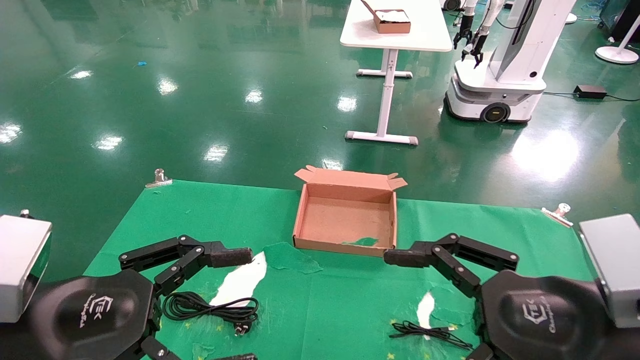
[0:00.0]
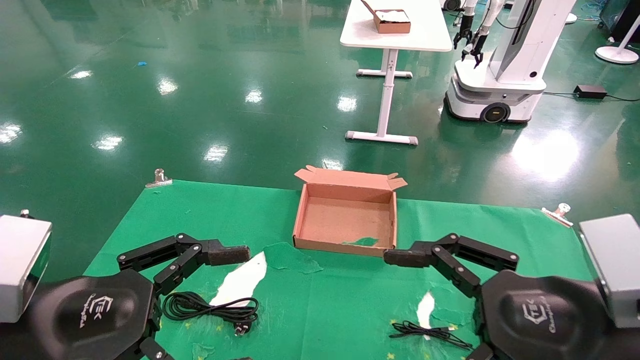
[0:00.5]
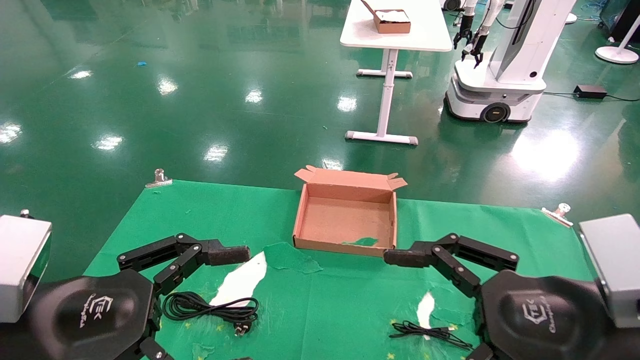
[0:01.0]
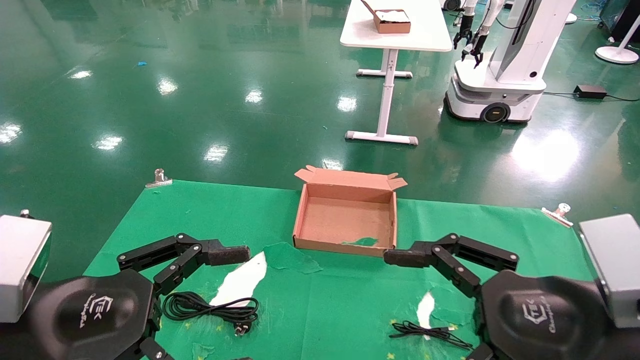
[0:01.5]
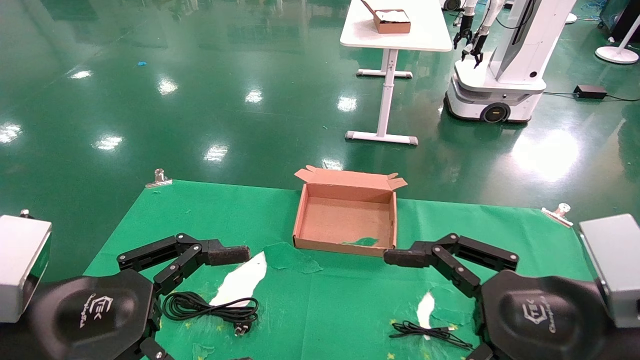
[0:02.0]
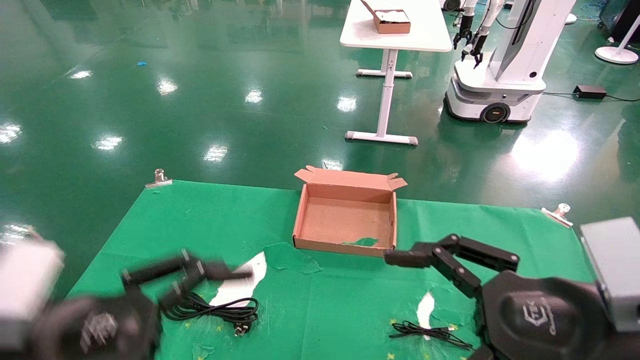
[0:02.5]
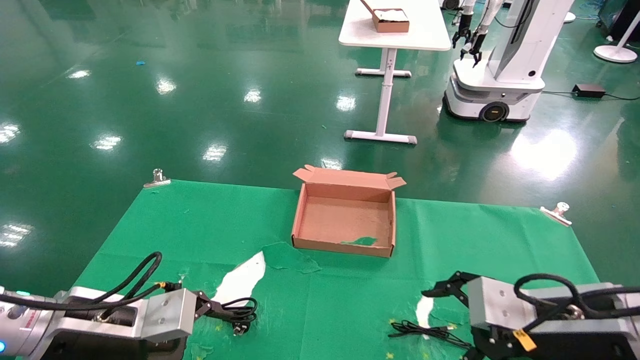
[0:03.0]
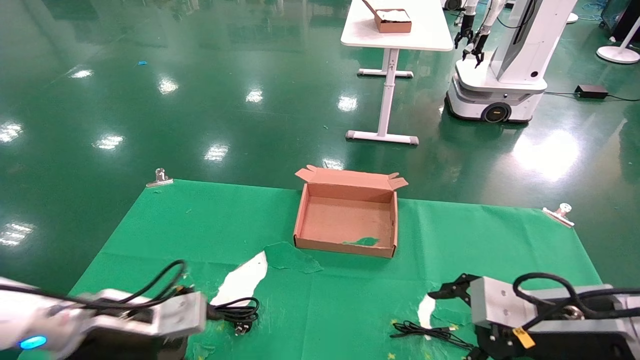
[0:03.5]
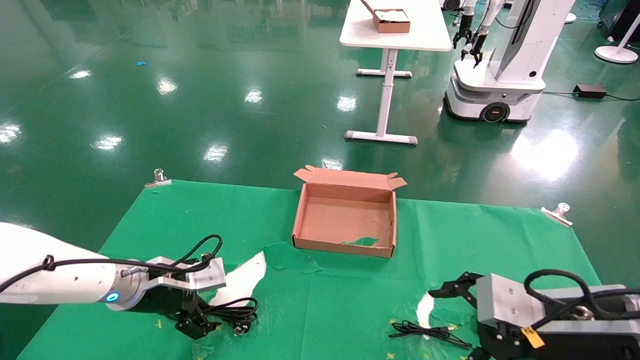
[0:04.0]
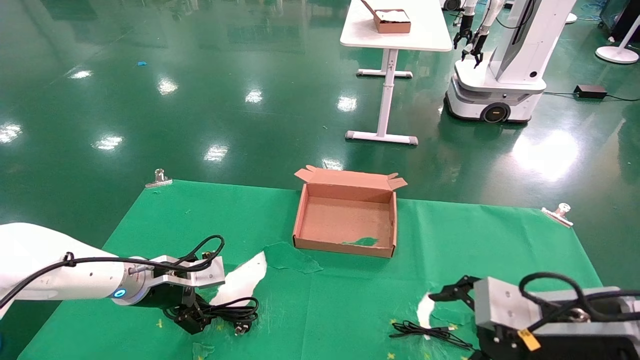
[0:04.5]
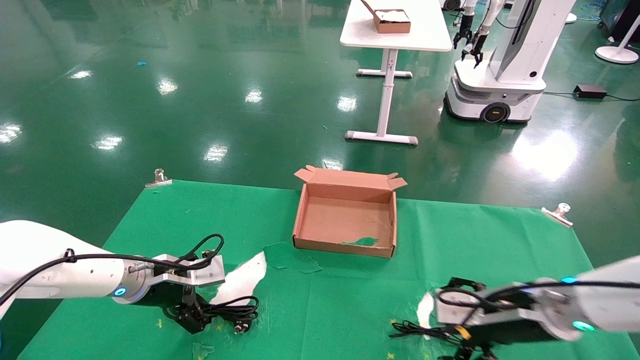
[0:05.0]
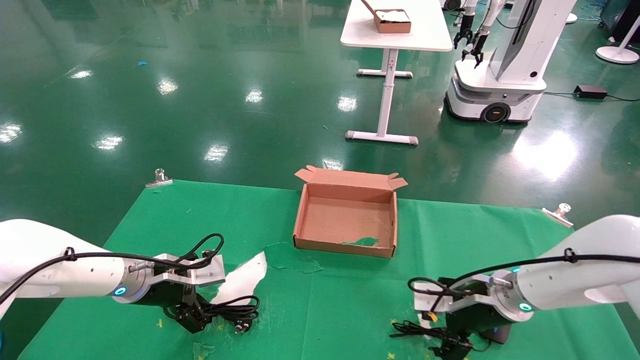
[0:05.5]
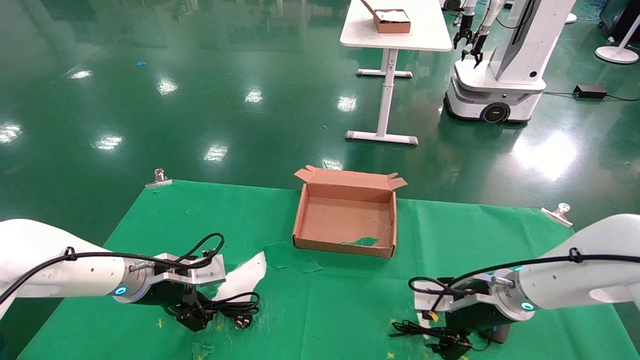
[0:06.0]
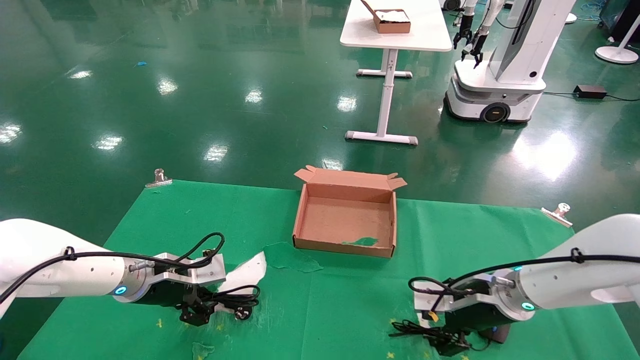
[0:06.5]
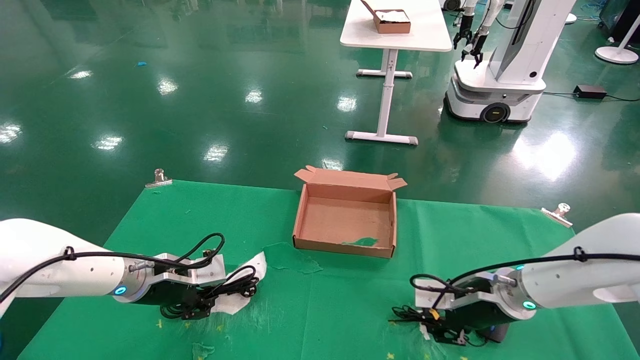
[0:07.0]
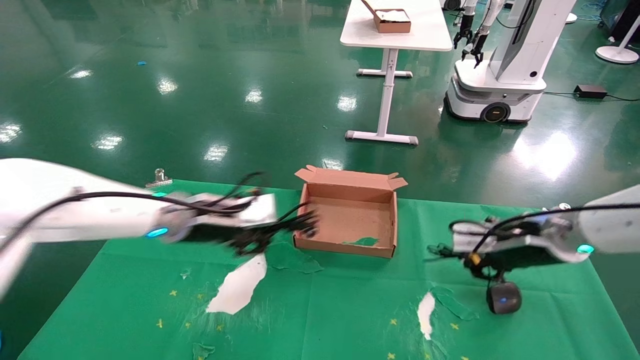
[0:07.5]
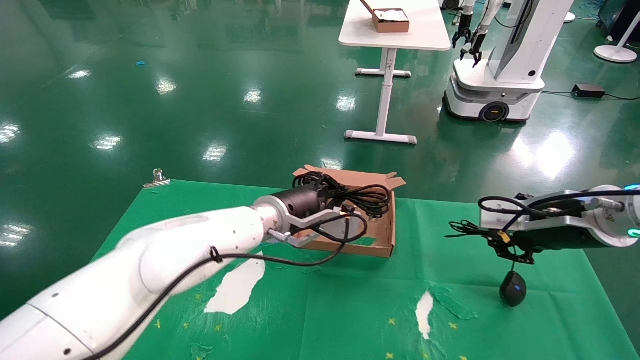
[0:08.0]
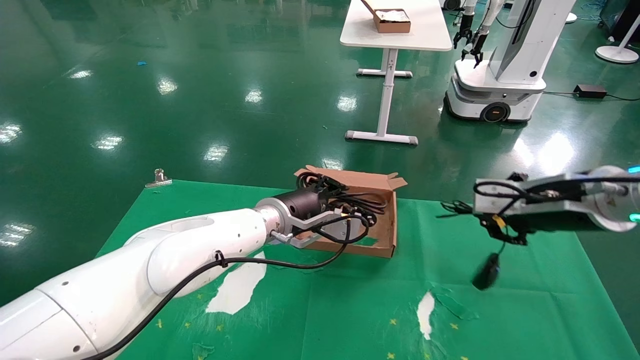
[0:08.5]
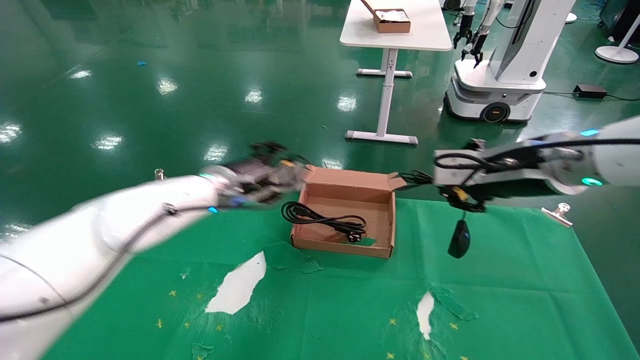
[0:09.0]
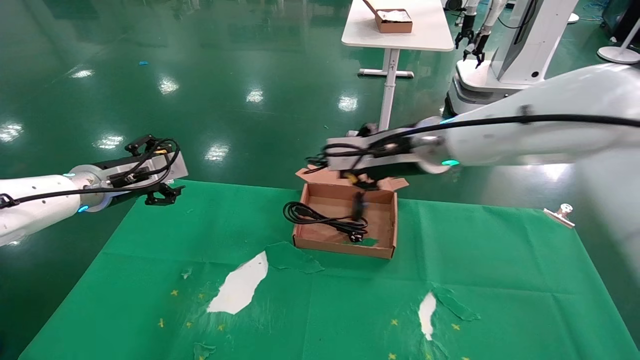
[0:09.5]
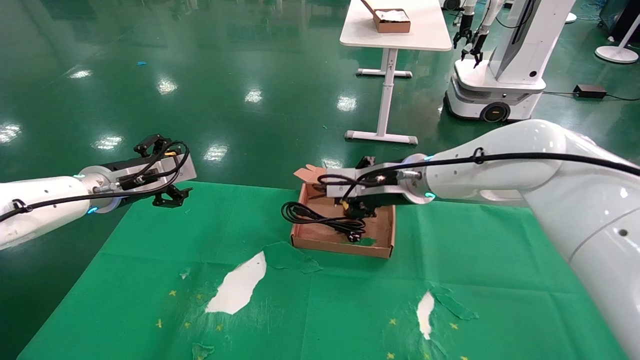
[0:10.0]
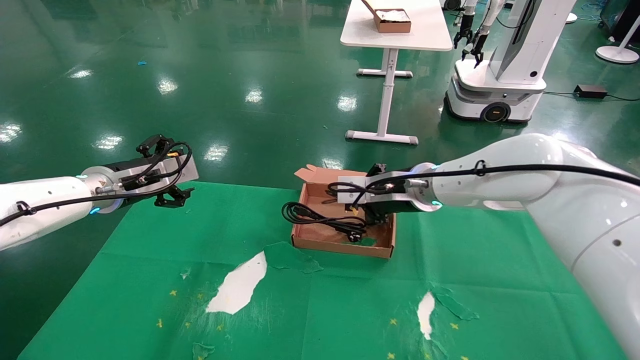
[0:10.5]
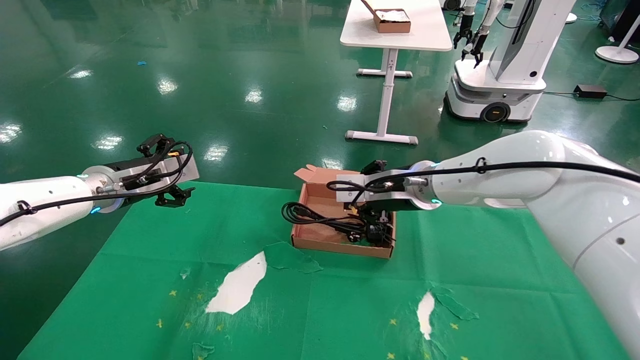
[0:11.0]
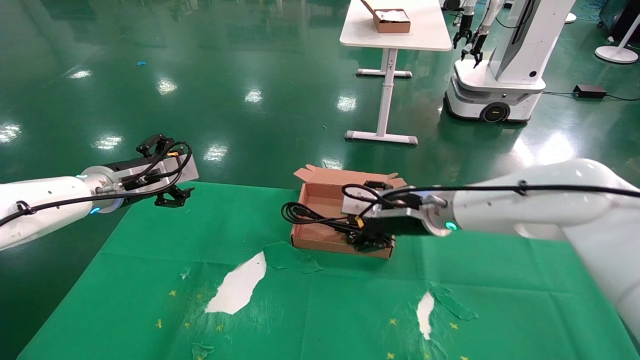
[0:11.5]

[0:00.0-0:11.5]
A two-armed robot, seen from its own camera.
Step, 0:03.0 to 0:07.5: Grab and lift both the mouse and power cord from the accessory packaging area at the same time.
Step, 0:08.0 to 0:11.5: Place the mouse and power cord into the box.
0:00.0 to 0:02.0: Neither gripper changes place.
0:02.0 to 0:04.0: The left gripper shifts some 25 cm forward and downward; the right gripper travels forward by about 5 cm.
0:04.0 to 0:06.0: The right gripper travels forward and downward by roughly 15 cm.
0:06.0 to 0:07.5: The right gripper shifts about 10 cm upward, and closes up. Meanwhile the left gripper is displaced to the right and upward by roughly 15 cm, and closes.
0:07.5 to 0:09.5: The right gripper goes some 20 cm to the left and upward; the left gripper heads to the left, covering roughly 15 cm, and opens up.
0:09.5 to 0:11.5: The right gripper shifts roughly 10 cm downward, and opens.

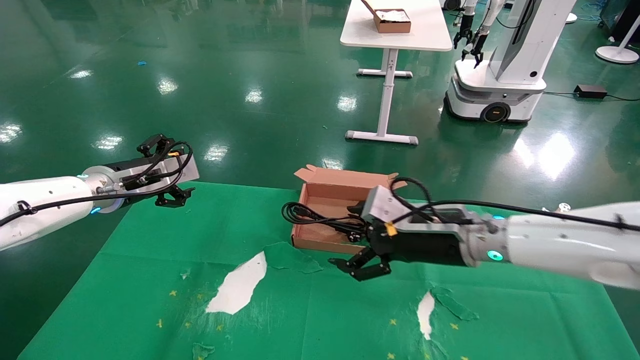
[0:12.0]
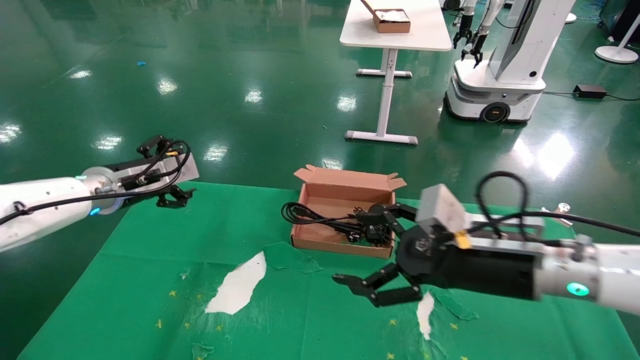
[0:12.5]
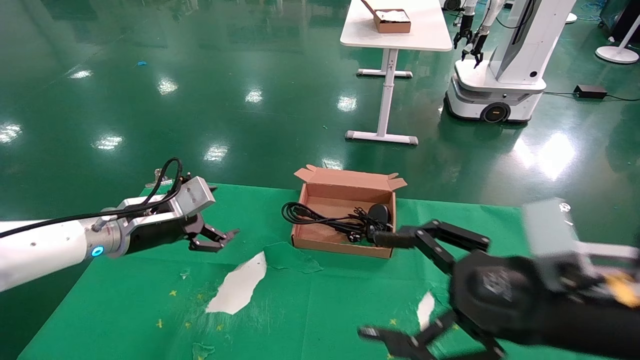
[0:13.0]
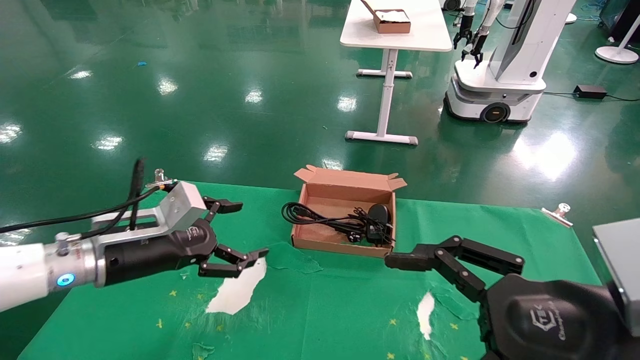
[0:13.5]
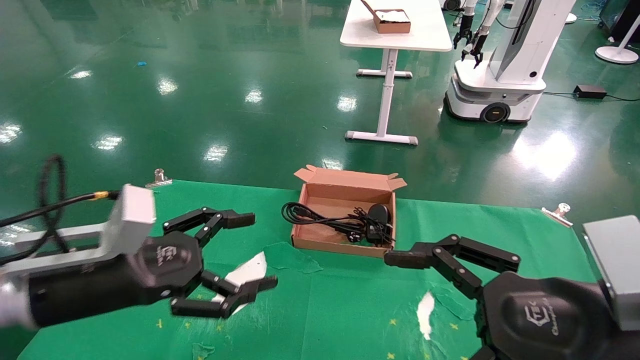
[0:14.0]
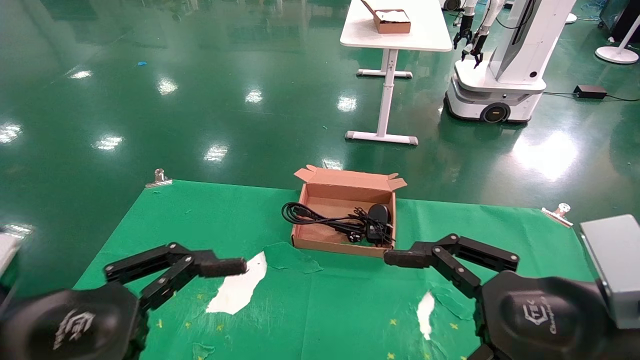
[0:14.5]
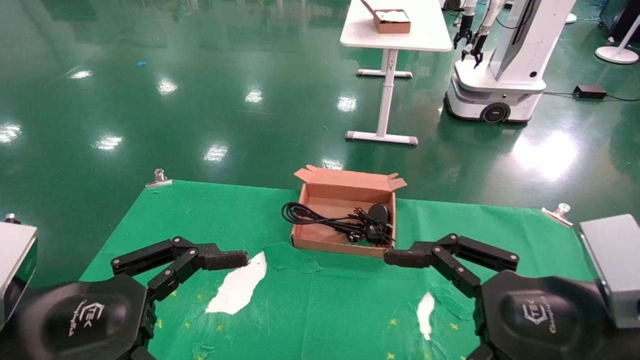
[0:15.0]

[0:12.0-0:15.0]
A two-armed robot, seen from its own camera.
0:12.0 to 0:13.5: The left gripper shifts approximately 15 cm backward, downward and to the right. Meanwhile the right gripper goes roughly 20 cm backward.
0:13.5 to 0:15.0: The left gripper shifts roughly 20 cm backward.
